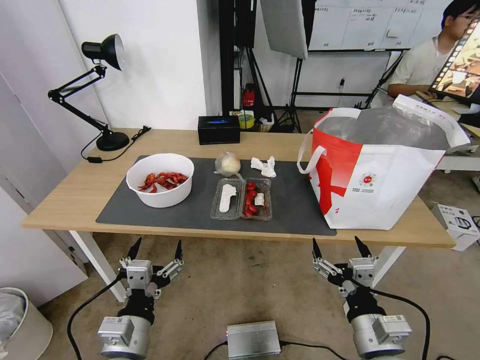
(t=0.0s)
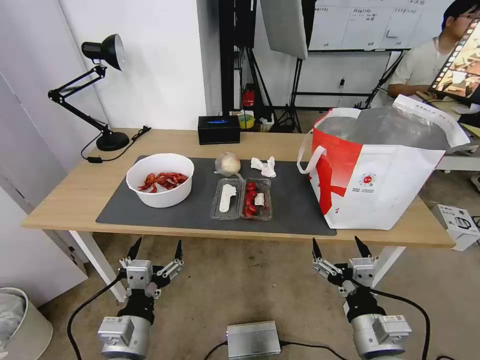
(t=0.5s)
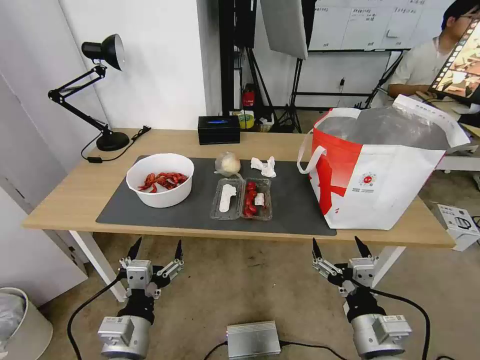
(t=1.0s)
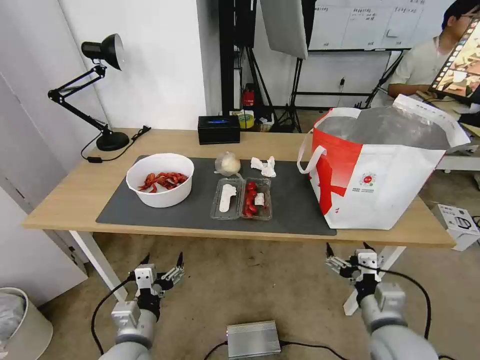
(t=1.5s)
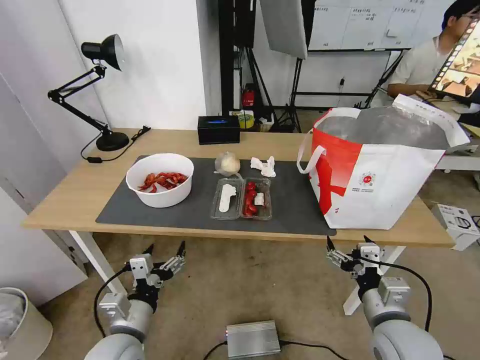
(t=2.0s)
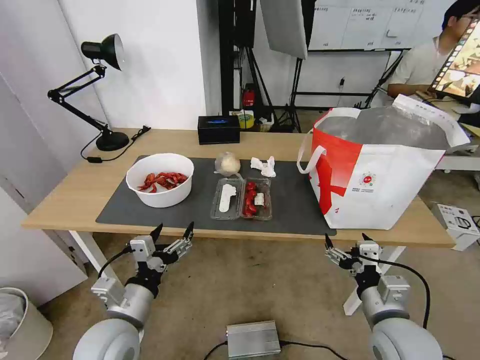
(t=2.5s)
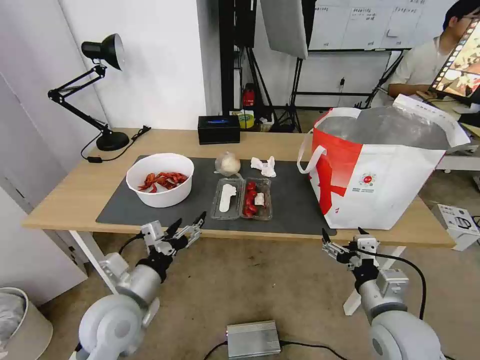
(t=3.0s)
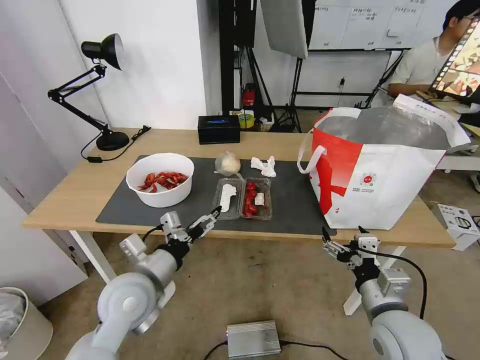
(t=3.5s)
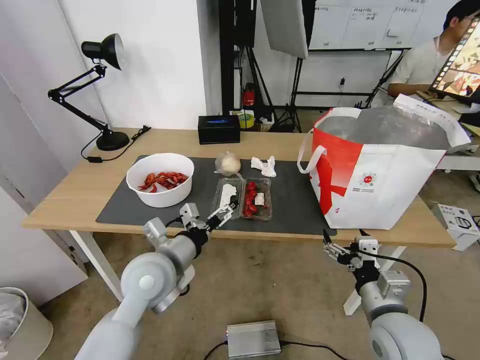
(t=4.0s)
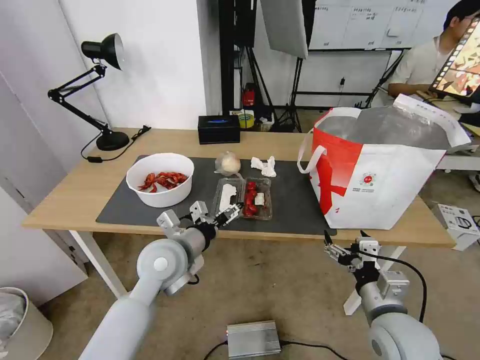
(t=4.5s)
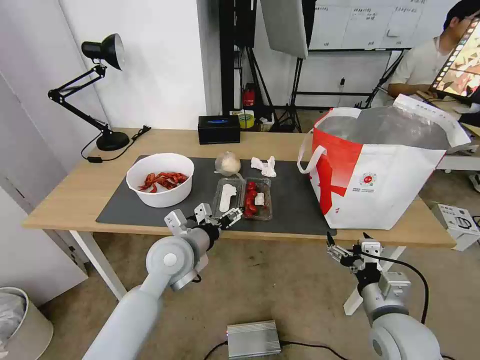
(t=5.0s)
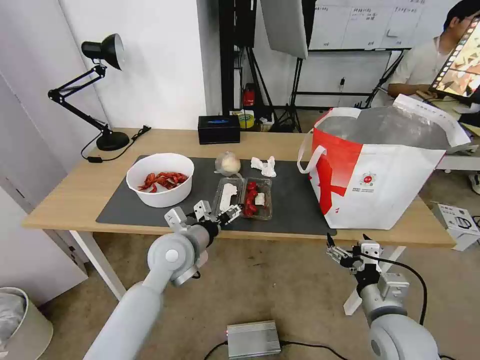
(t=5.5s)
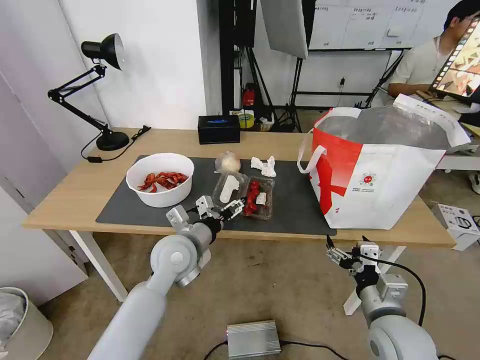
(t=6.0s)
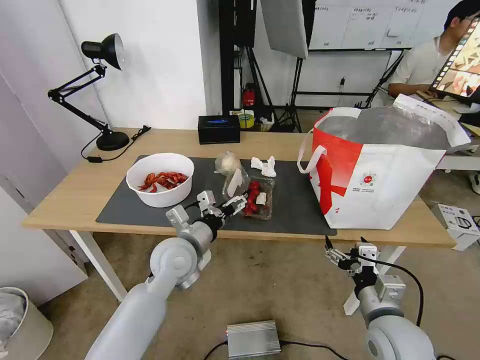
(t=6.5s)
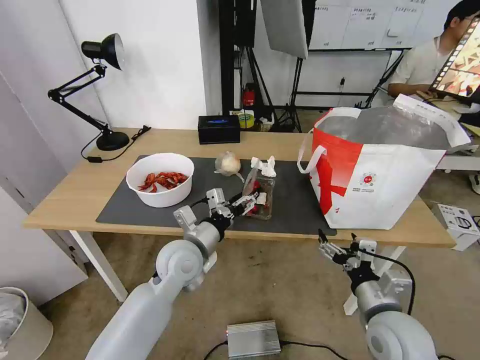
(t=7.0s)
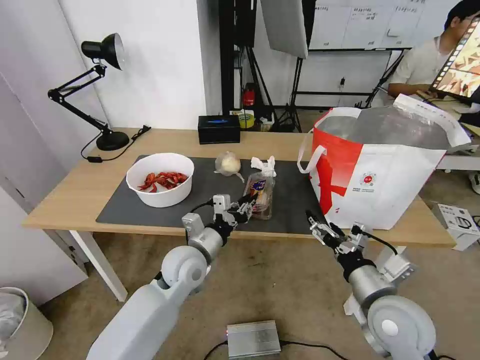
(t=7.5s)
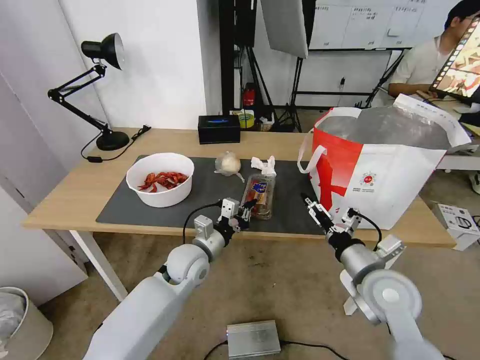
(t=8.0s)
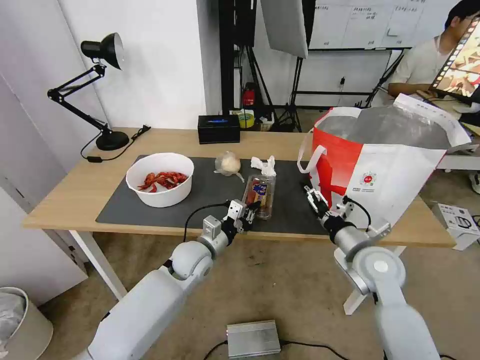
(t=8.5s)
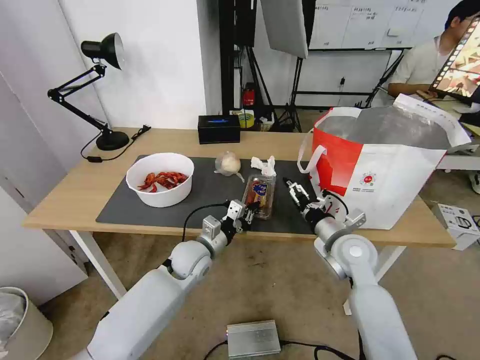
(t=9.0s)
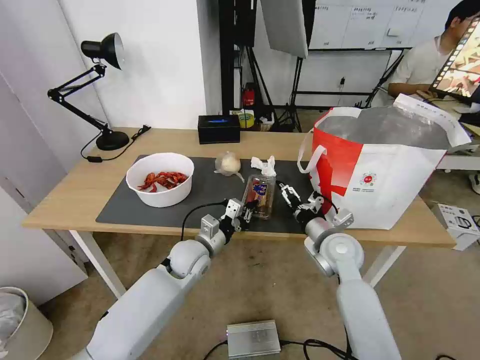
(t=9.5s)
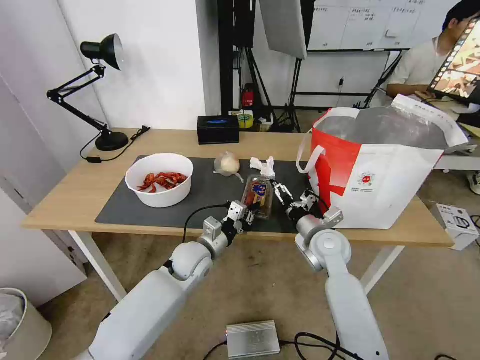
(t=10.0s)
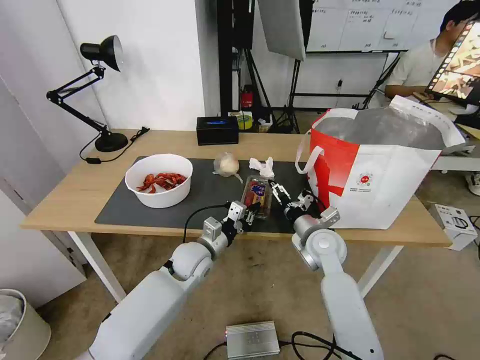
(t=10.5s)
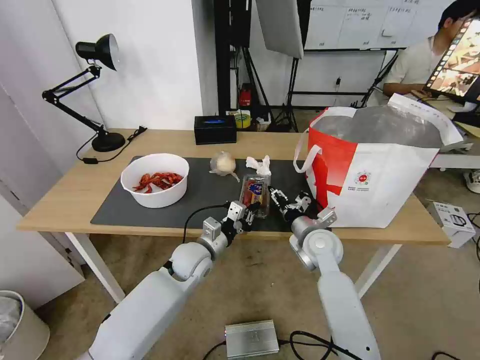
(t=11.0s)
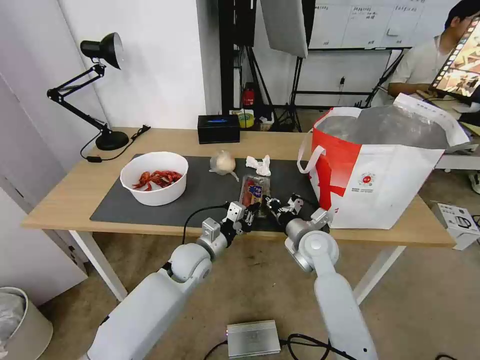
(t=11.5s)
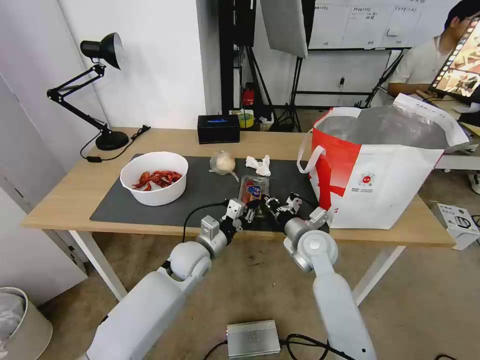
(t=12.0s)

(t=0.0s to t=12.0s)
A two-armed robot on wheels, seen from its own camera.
Task of the whole recording: Pick up the trash from the table and place it into the takeout bag.
t=2.0s - t=4.0s: The left gripper is displaced forward, upward and to the right by some 15 cm.
t=4.0s - t=6.0s: The left gripper moves forward, roughly 5 cm.
t=6.0s - t=8.0s: The right gripper shifts roughly 10 cm upward and forward, while the left gripper is displaced downward by some 5 cm, and closes up.
t=8.0s - t=10.0s: The right gripper shifts about 15 cm forward and to the left.
t=10.0s - t=12.0s: The right gripper closes its fingers.

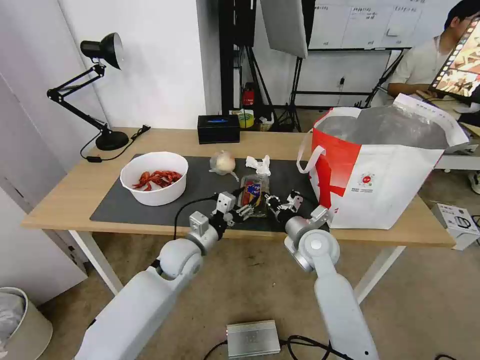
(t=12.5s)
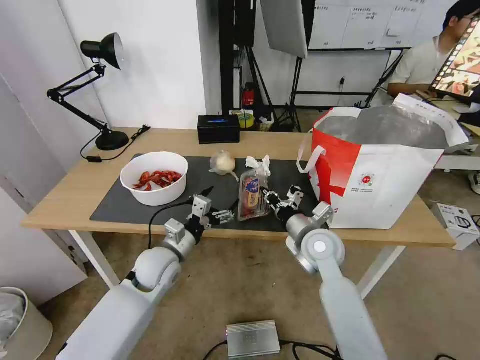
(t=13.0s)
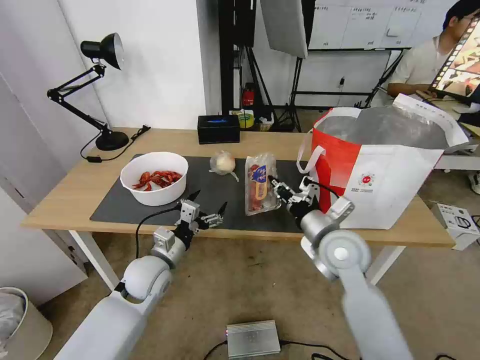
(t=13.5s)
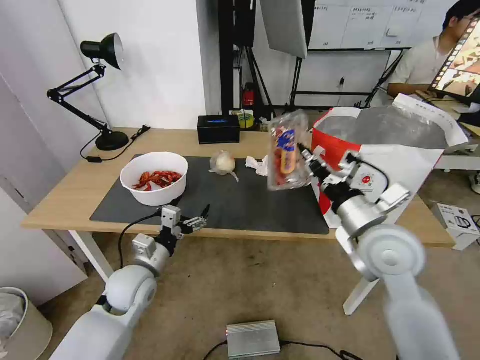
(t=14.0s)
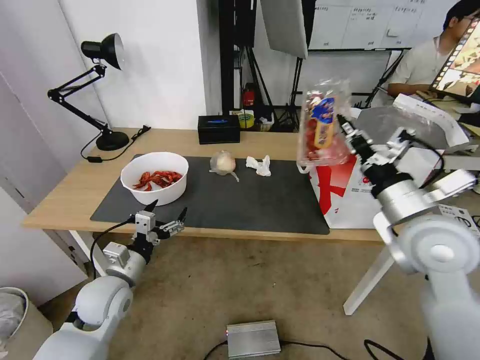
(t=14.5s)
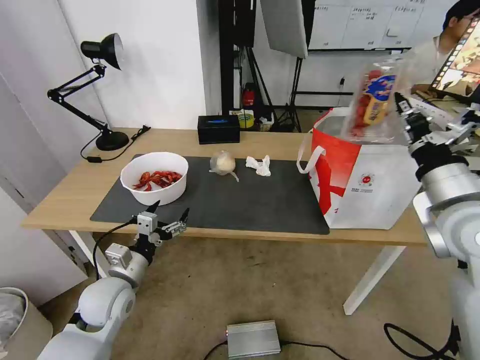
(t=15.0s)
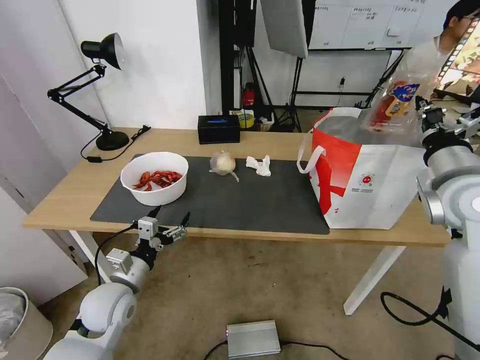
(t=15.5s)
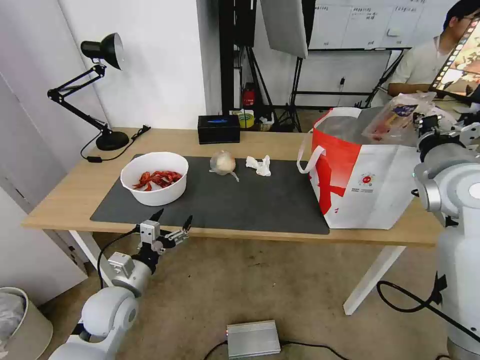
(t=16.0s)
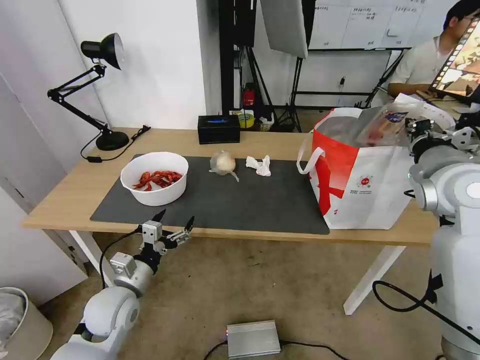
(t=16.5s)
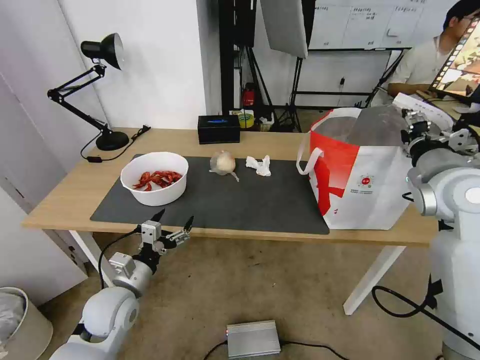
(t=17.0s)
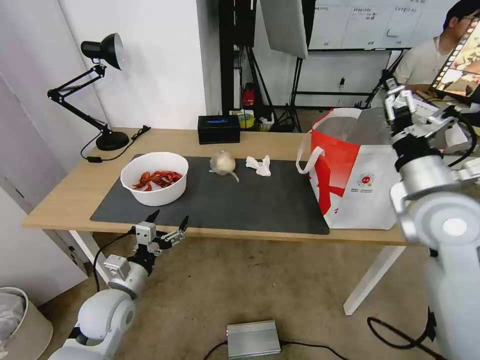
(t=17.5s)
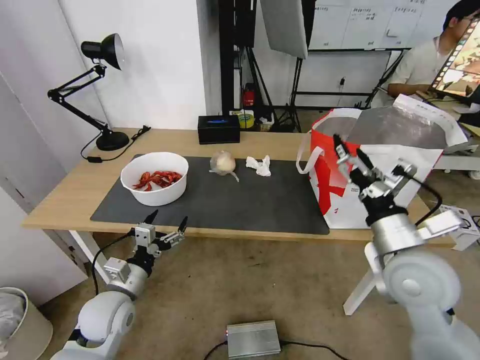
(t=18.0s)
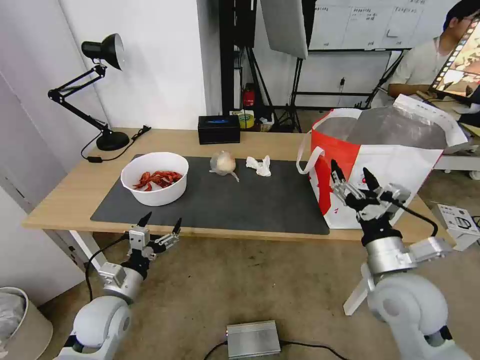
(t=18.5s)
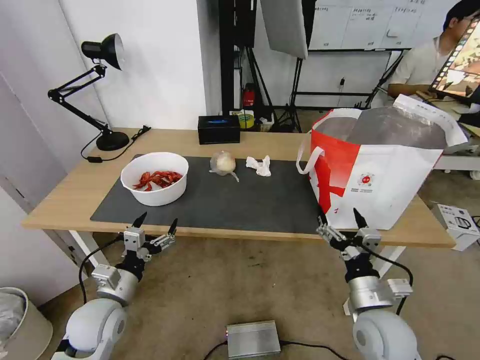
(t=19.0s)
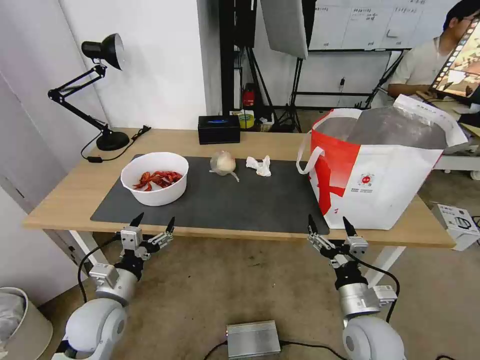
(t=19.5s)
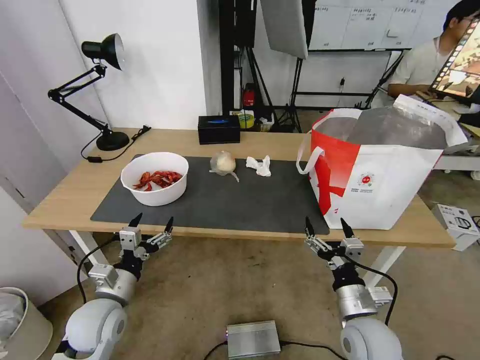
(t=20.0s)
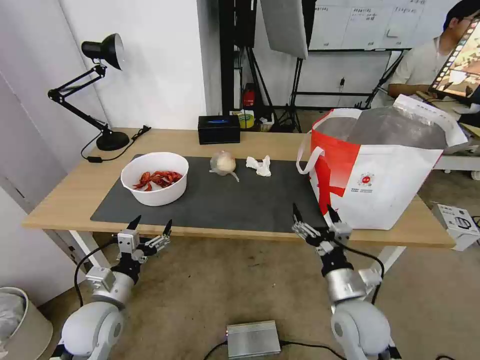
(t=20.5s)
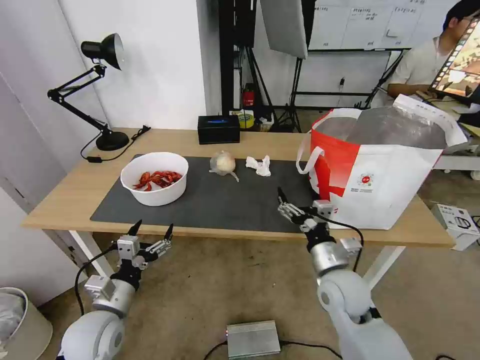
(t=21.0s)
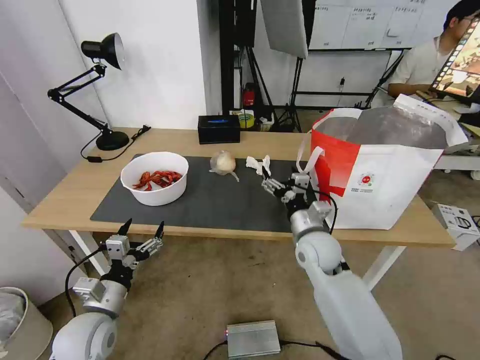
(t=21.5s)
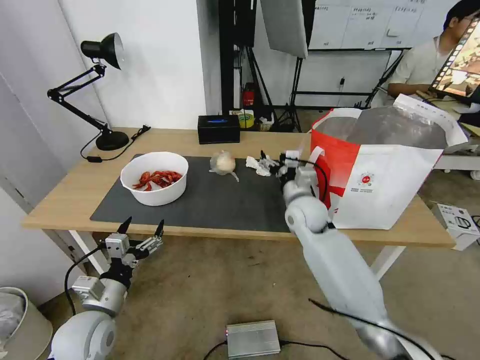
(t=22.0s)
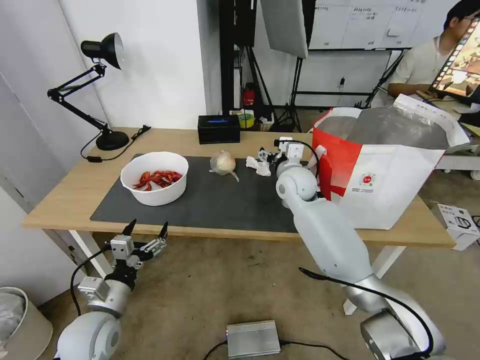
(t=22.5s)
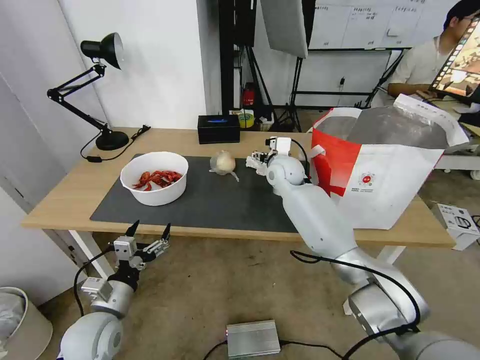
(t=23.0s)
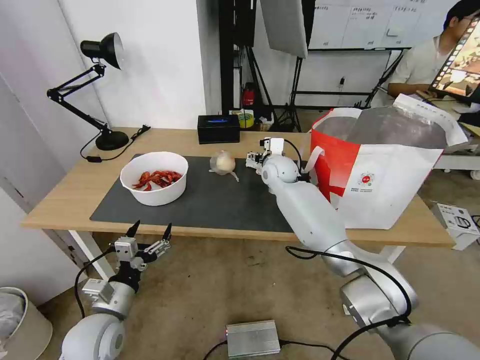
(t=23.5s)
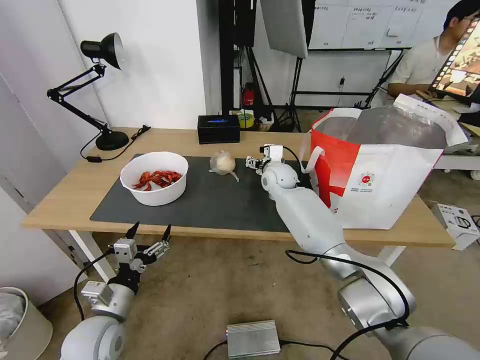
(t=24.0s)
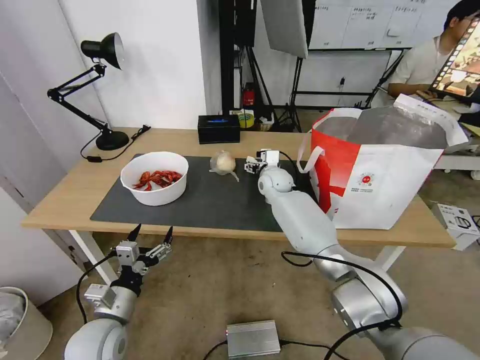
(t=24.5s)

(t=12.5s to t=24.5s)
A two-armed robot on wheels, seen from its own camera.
Task of the whole recording: Pick up the trash from the table and place it into the takeout bag.
t=12.5s - t=14.5s: The right gripper goes approximately 25 cm upward, to the right and backward. The left gripper heads to the left and backward, covering some 15 cm.
t=14.5s - t=16.5s: The right gripper moves forward and to the right, approximately 10 cm.
t=16.5s - t=18.5s: The right gripper shifts some 20 cm downward, backward and to the left, and opens up.
t=18.5s - t=20.5s: The right gripper travels downward by approximately 10 cm.
t=20.5s - t=22.5s: The right gripper heads forward, covering roughly 30 cm.
t=22.5s - t=24.5s: The right gripper is displaced forward and downward by about 10 cm.

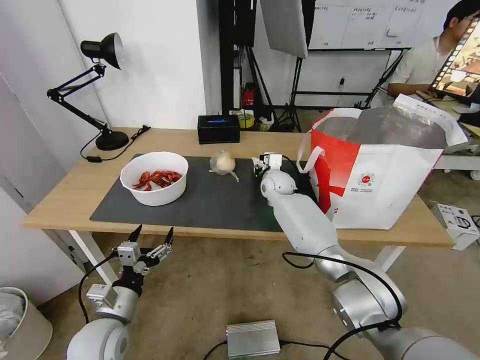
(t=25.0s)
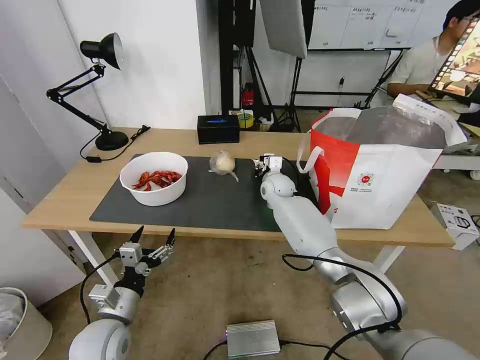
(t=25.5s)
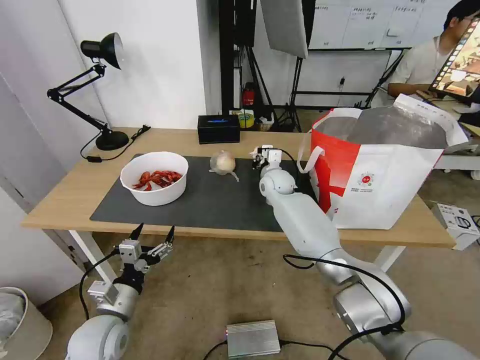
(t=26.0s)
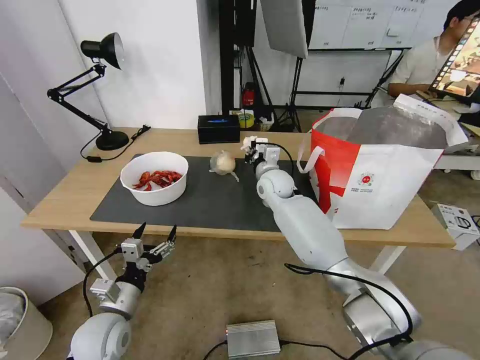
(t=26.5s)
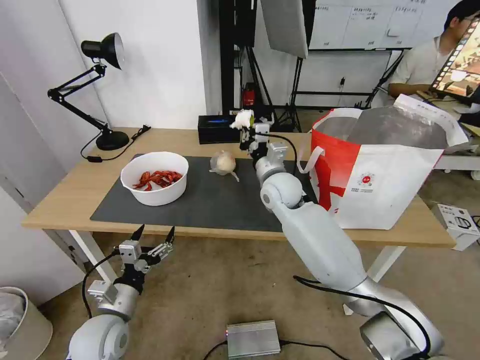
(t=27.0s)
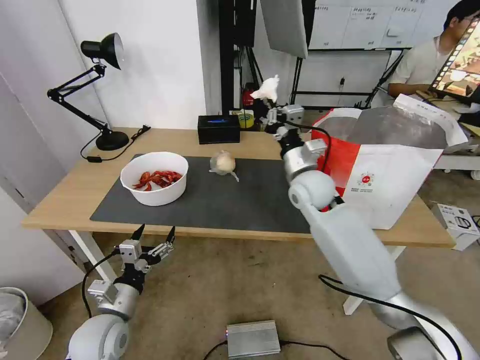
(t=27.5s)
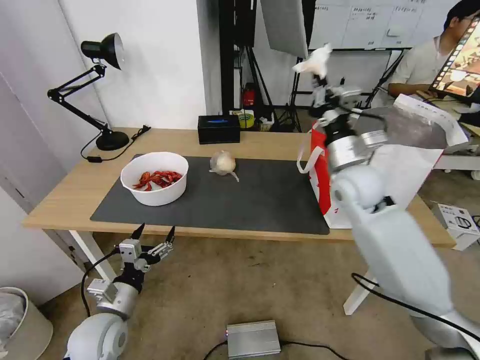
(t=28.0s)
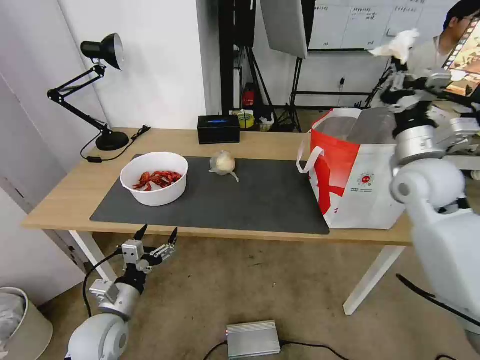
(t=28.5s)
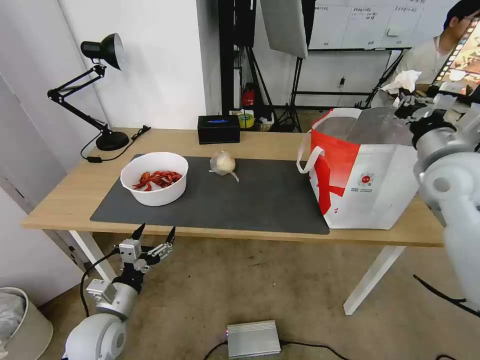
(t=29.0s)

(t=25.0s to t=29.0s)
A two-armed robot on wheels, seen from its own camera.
Task of the whole recording: Pick up the trash from the table and place it into the takeout bag.
t=25.0s - t=27.0s: The right gripper moves backward and upward, roughly 15 cm, and closes.
t=27.0s - t=29.0s: The right gripper moves to the right and upward, some 30 cm.
